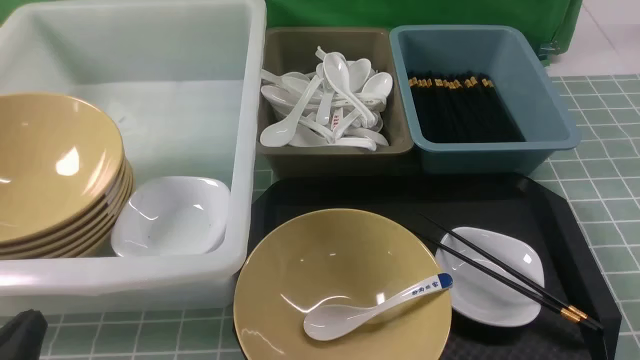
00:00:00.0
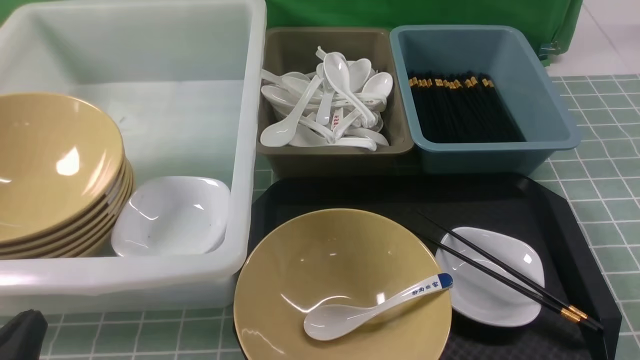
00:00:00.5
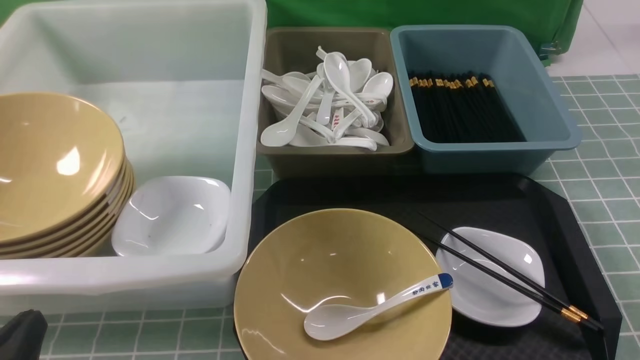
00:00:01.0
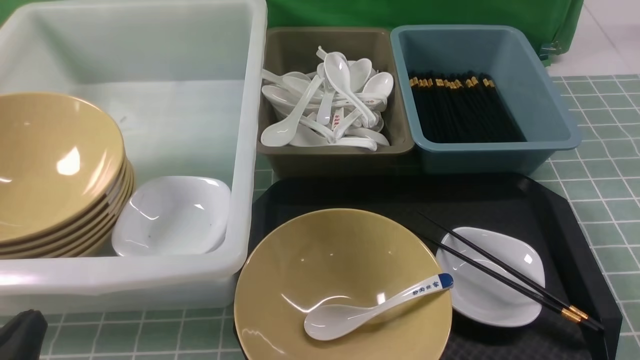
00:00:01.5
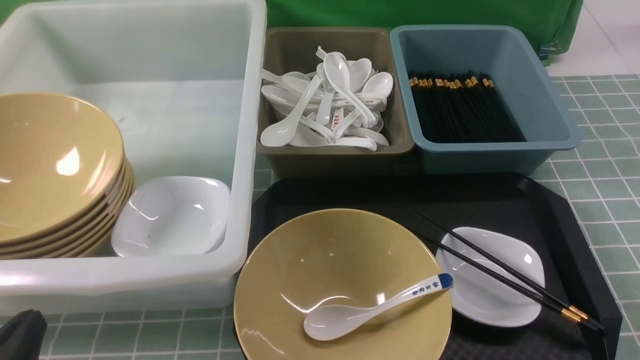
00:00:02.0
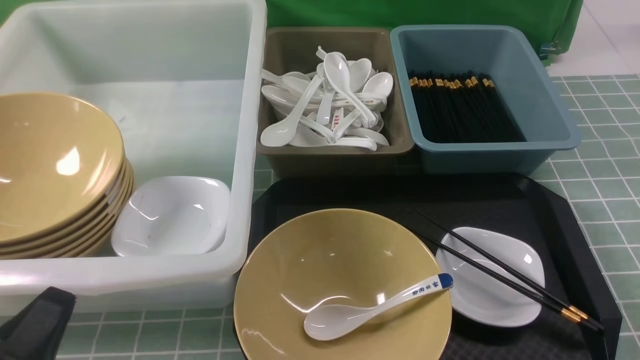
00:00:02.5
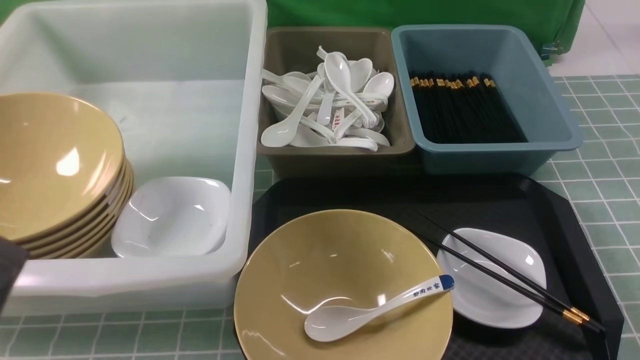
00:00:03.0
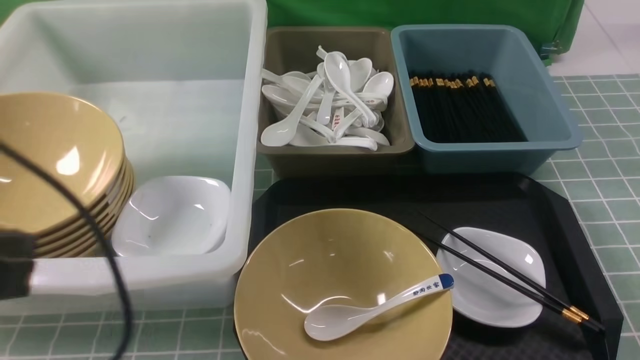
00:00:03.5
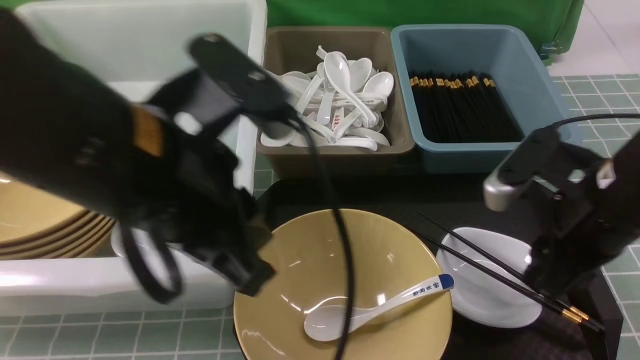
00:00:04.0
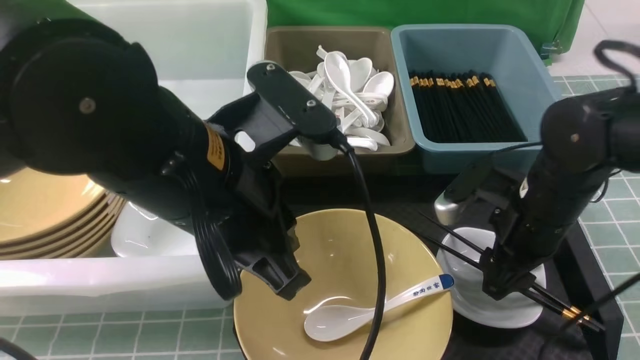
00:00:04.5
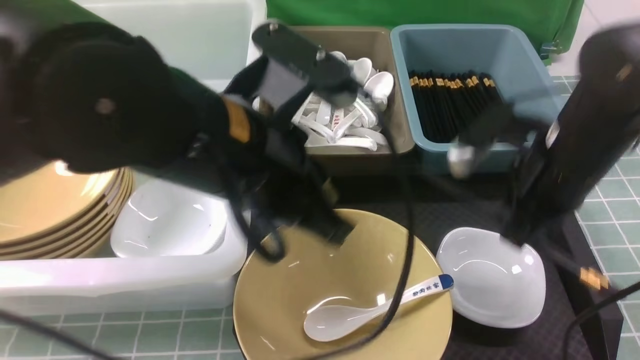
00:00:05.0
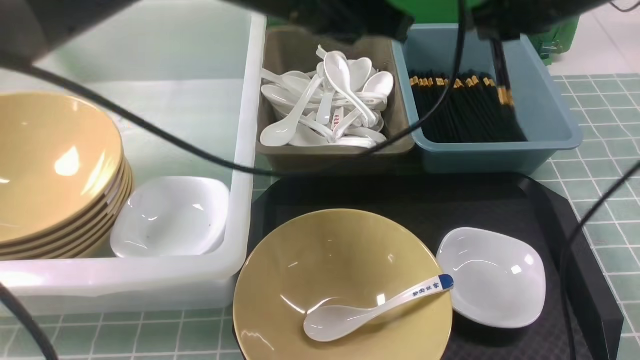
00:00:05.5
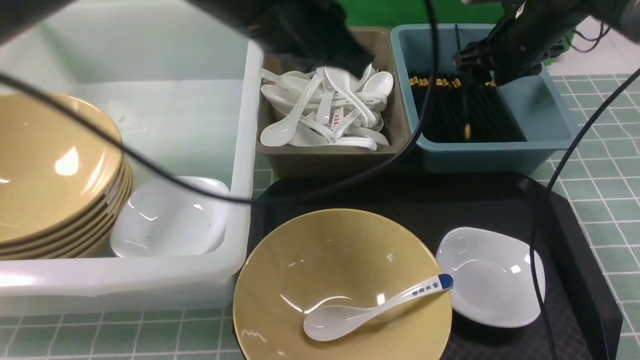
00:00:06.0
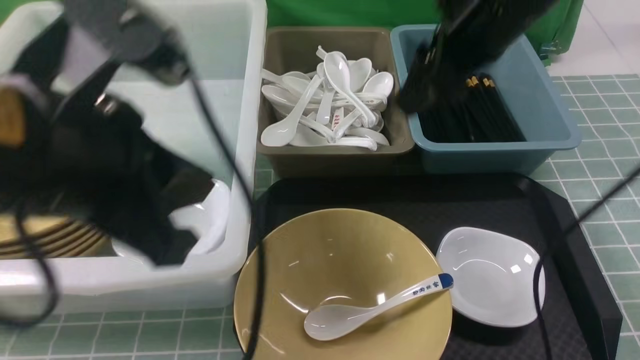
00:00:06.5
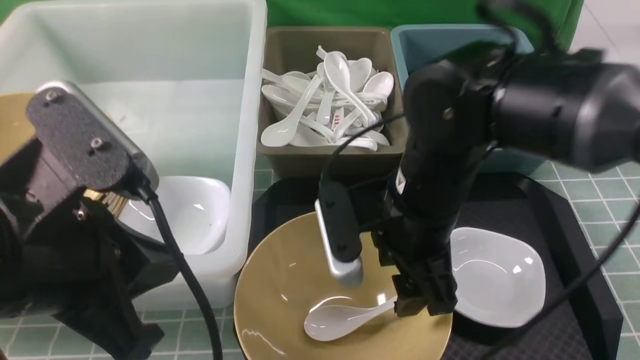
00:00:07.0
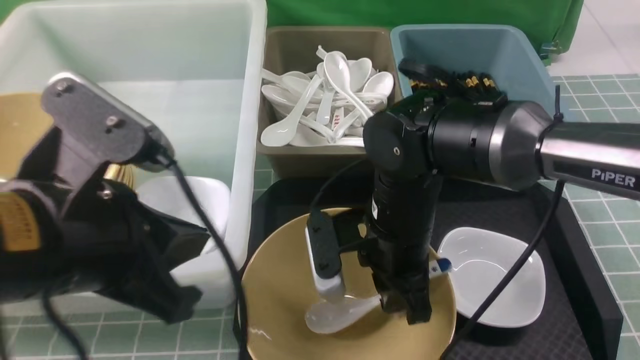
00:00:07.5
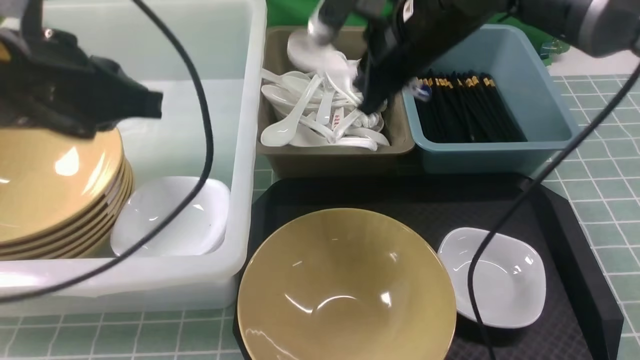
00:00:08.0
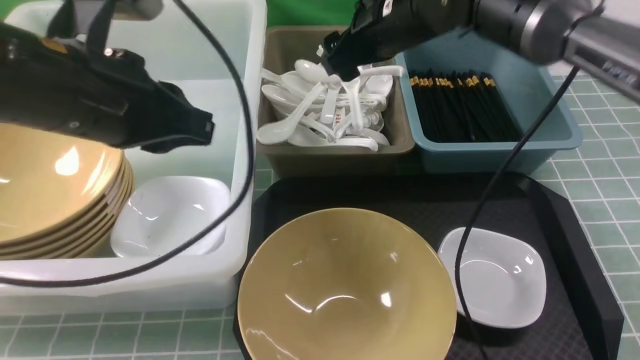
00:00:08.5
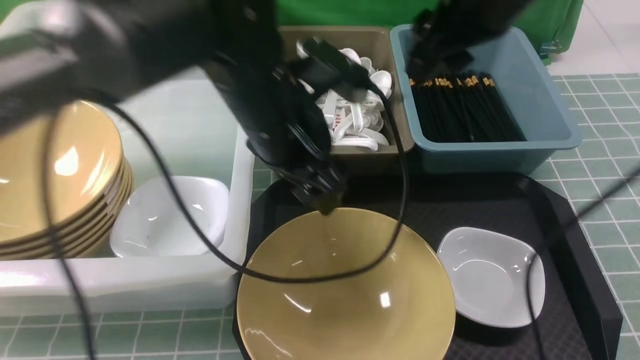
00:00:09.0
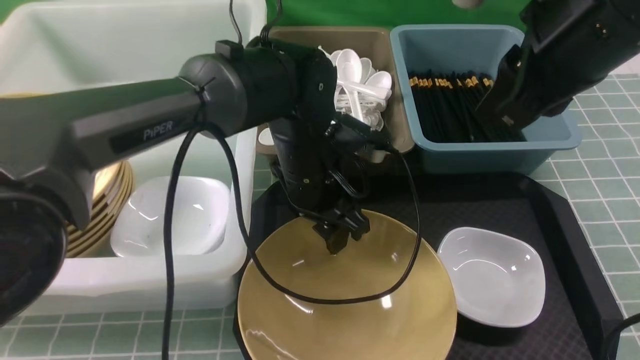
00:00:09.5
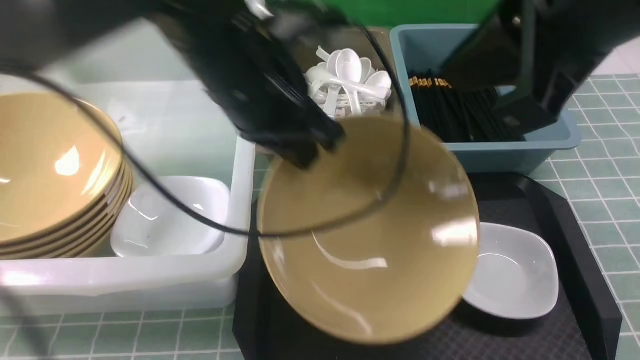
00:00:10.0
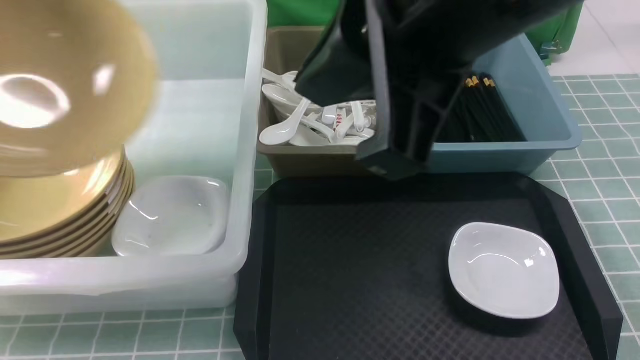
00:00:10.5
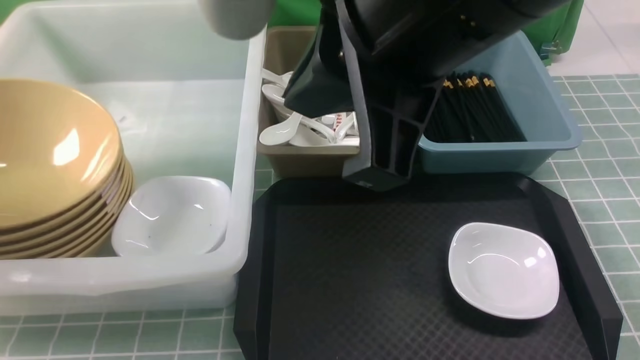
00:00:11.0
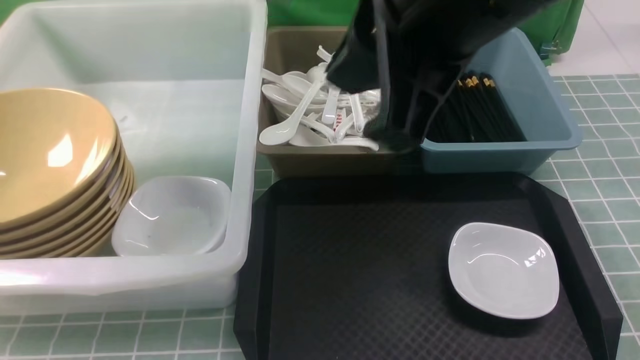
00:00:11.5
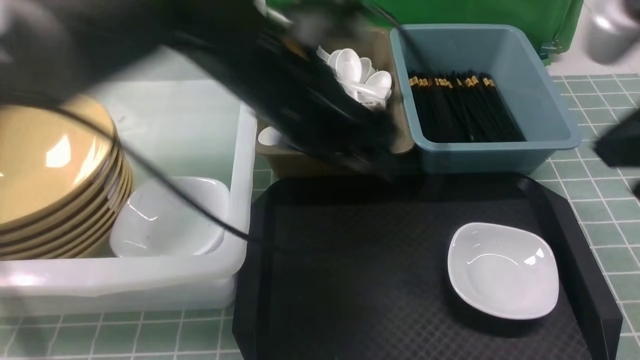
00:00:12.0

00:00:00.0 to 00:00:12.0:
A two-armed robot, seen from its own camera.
Task of the whole recording: on blue table put chopsticks spoon bowls plates into blue grey white boxes.
Step, 00:00:00.0 to 00:00:04.5: use the right arm to grab the chopsticks.
Step, 00:00:05.5 to 00:00:06.0: use the right arm to put the chopsticks into the small storage box on the right.
Step, 00:00:06.5 to 00:00:07.5: use the right arm to grab the soup spoon in the middle.
Step, 00:00:08.0 to 00:00:08.5: use the right arm to put the soup spoon into the small storage box in the middle.
Step, 00:00:09.0 to 00:00:09.5: use the left arm to grab the yellow noodle bowl on the left.
Step, 00:00:10.0 to 00:00:11.0: use the left arm to put the noodle bowl into the large storage box on the left.
00:00:02.0 to 00:00:04.0: The left gripper moves upward, to the right and forward, approximately 25 cm. Meanwhile the right gripper moves forward, to the left and upward, about 25 cm, and closes, then opens again.
00:00:04.0 to 00:00:06.0: The right gripper heads forward, covering approximately 25 cm, and closes and opens again. Meanwhile the left gripper moves forward, roughly 10 cm.
00:00:06.0 to 00:00:08.0: The left gripper travels to the left by some 10 cm, and reaches about 15 cm backward, then returns. Meanwhile the right gripper travels to the left and backward by about 15 cm, and closes up.
00:00:08.0 to 00:00:10.0: The right gripper shifts approximately 25 cm backward and upward, and opens, then closes once more. The left gripper goes about 10 cm to the right and forward, and opens, then closes once more.
00:00:10.0 to 00:00:12.0: The right gripper goes some 10 cm to the right. The left gripper goes to the left and returns, roughly 30 cm each way, and opens its fingers.

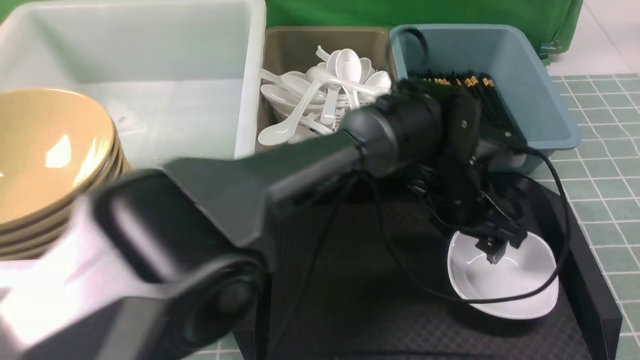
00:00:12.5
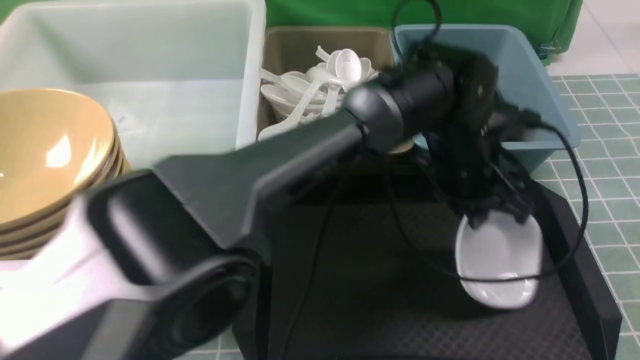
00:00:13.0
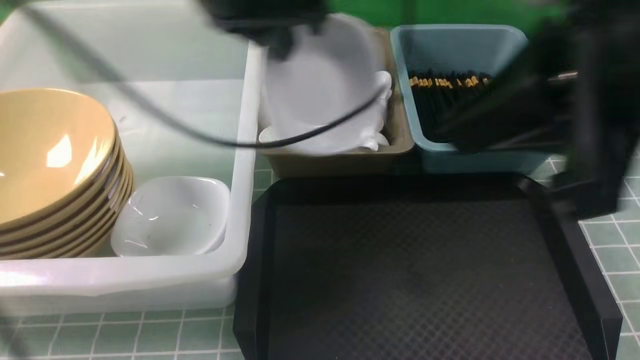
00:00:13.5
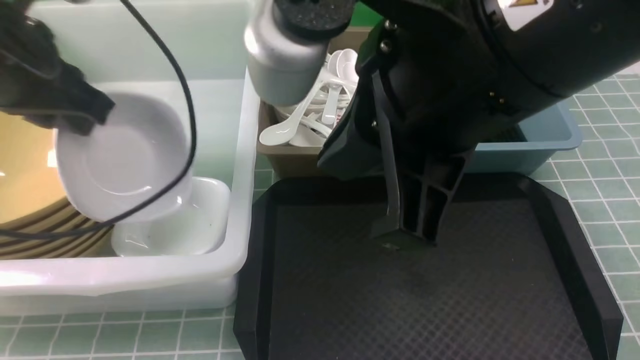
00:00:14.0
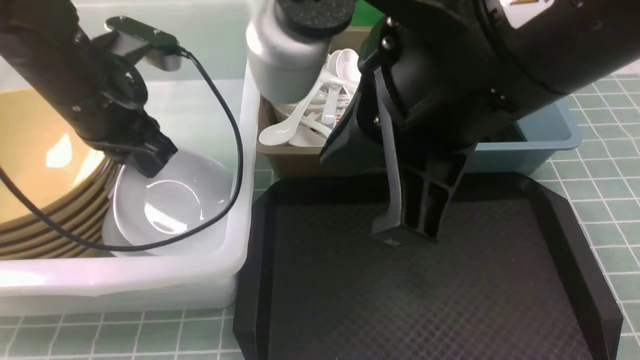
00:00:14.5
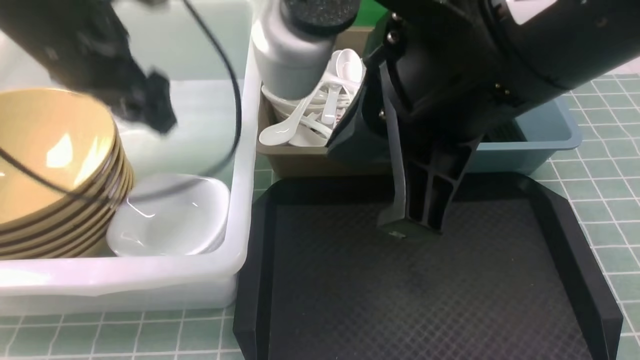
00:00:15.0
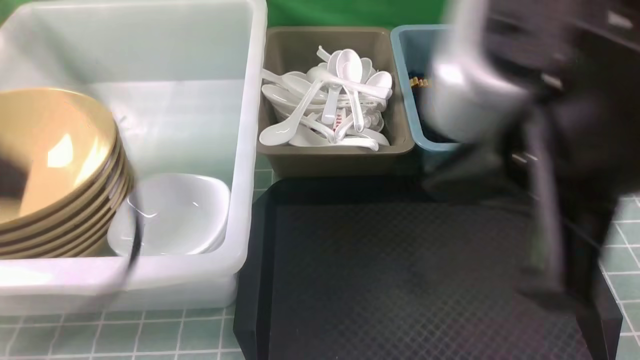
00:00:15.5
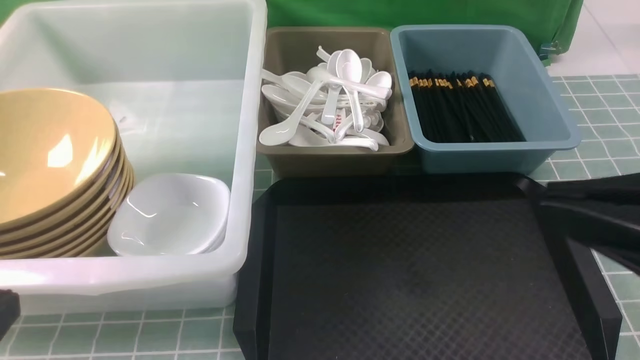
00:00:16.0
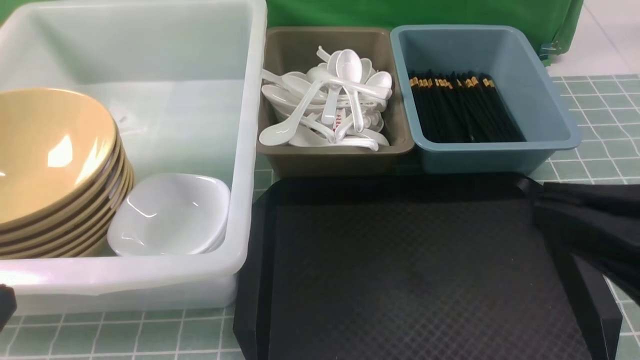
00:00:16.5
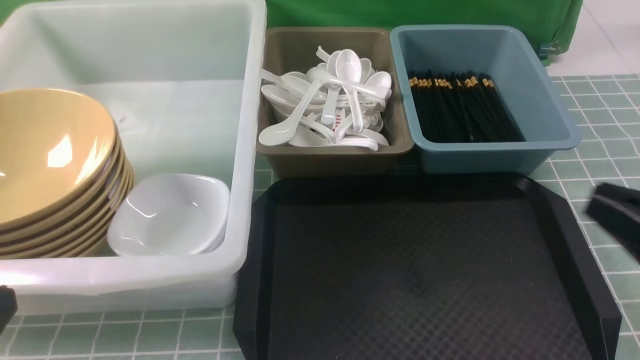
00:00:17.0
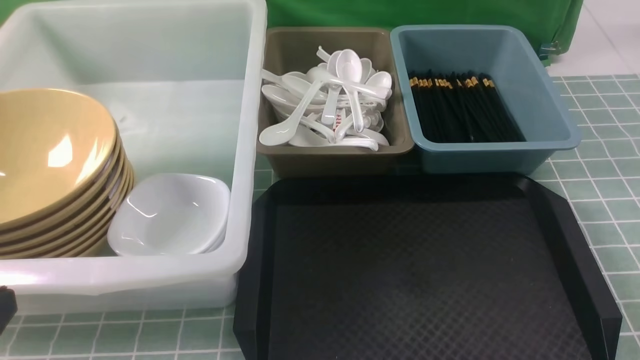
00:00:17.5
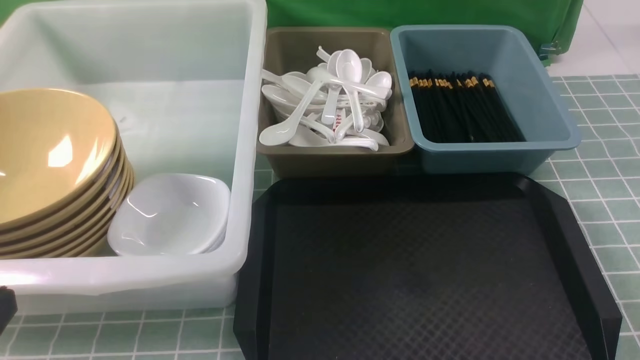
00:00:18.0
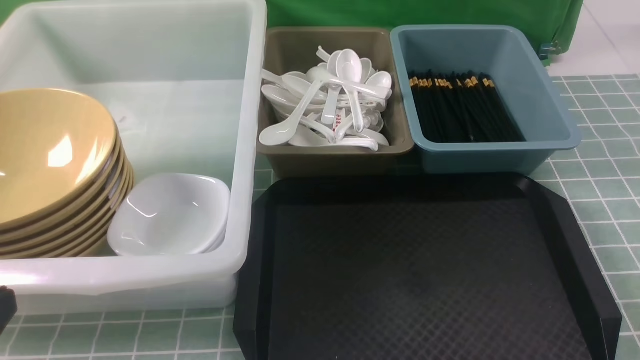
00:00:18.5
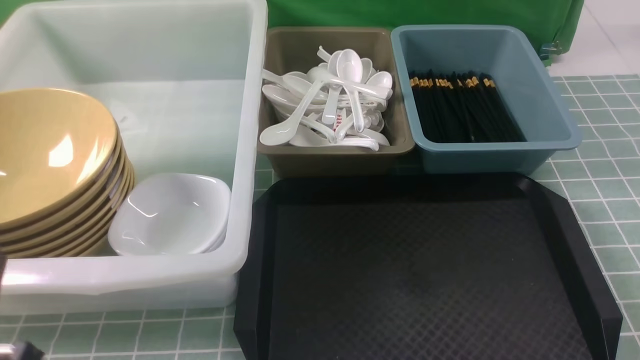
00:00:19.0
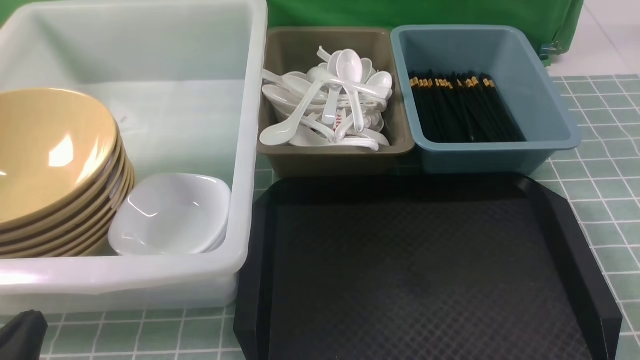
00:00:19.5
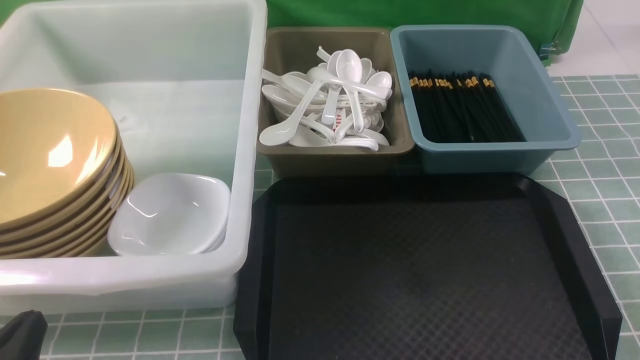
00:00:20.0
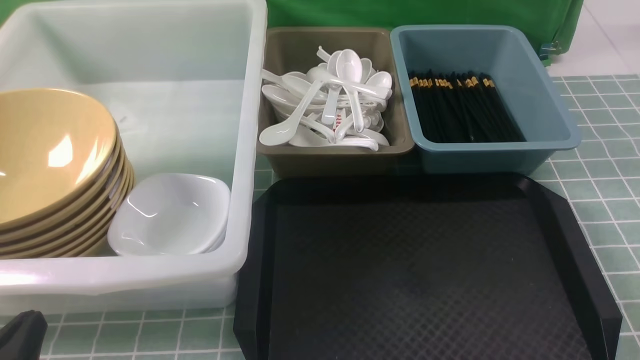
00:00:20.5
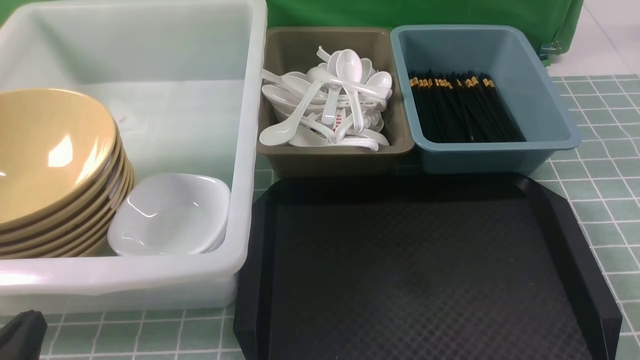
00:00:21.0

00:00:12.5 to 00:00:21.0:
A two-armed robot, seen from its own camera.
Task of the whole recording: on blue table put chopsticks spoon bowls plates into blue grey white boxes.
Step, 00:00:13.5 to 00:00:15.0: use the left arm to put the plate into the large storage box on the left.
00:00:12.5 to 00:00:14.5: The right gripper shifts about 20 cm to the left. Meanwhile the left gripper heads to the left, covering about 35 cm, and closes its fingers.
00:00:14.5 to 00:00:16.5: The right gripper goes approximately 20 cm to the right, backward and downward. Meanwhile the left gripper goes some 30 cm backward, and opens, then closes again.
00:00:16.5 to 00:00:19.0: The right gripper is displaced downward and to the right by approximately 20 cm.
00:00:19.0 to 00:00:21.0: The left gripper goes about 5 cm downward.
